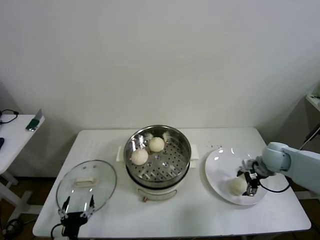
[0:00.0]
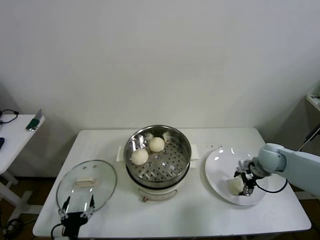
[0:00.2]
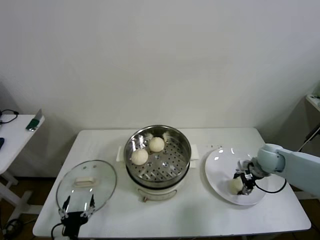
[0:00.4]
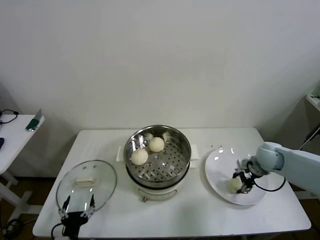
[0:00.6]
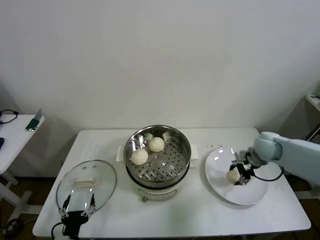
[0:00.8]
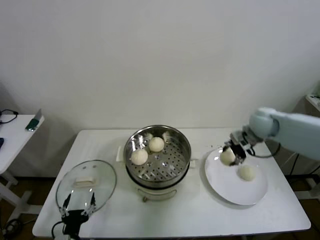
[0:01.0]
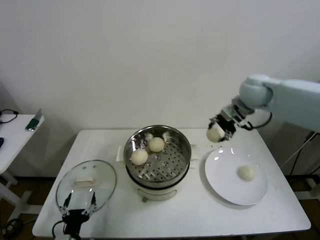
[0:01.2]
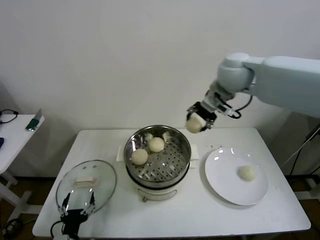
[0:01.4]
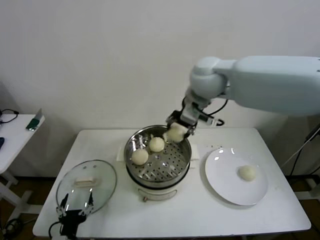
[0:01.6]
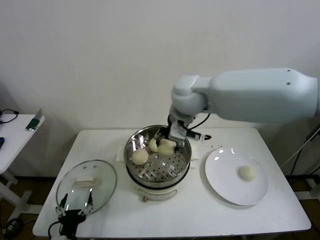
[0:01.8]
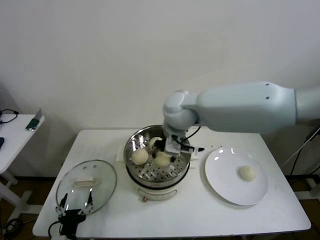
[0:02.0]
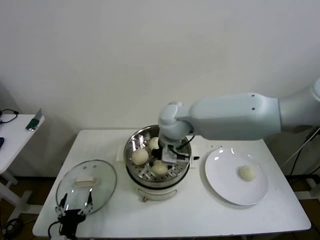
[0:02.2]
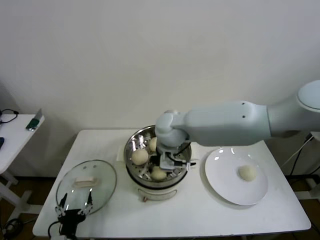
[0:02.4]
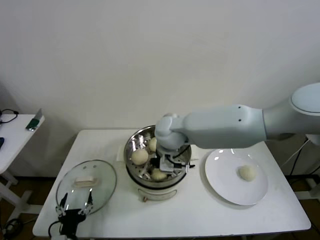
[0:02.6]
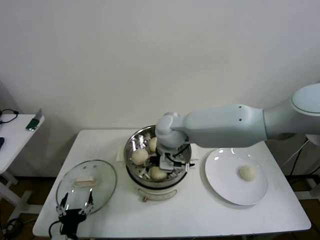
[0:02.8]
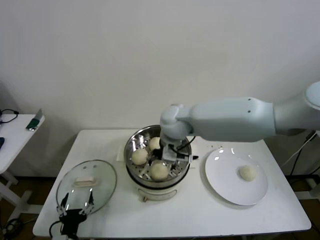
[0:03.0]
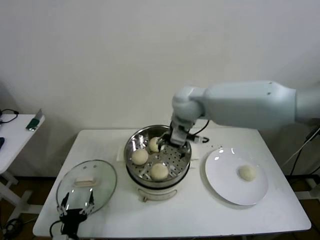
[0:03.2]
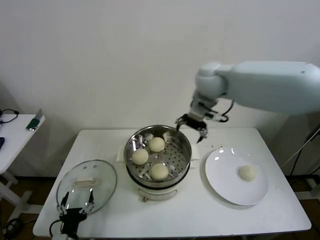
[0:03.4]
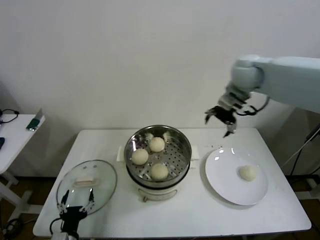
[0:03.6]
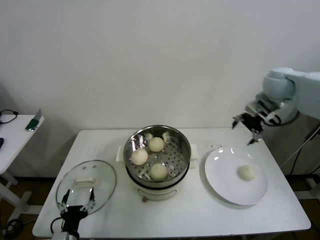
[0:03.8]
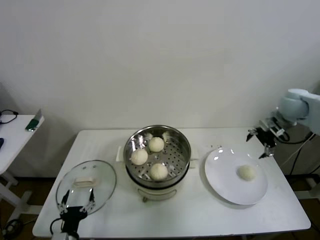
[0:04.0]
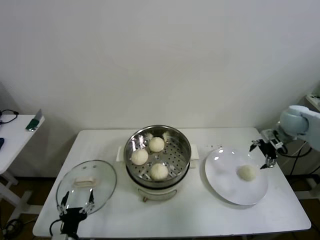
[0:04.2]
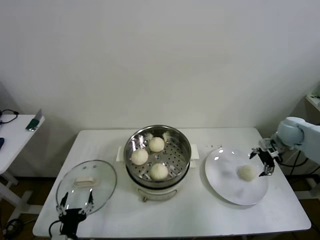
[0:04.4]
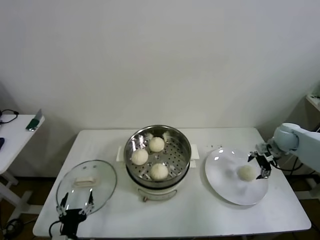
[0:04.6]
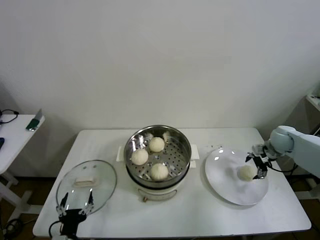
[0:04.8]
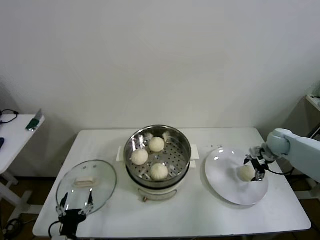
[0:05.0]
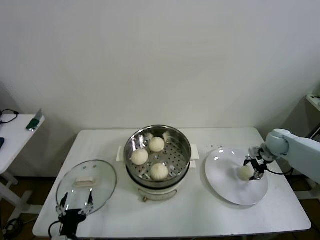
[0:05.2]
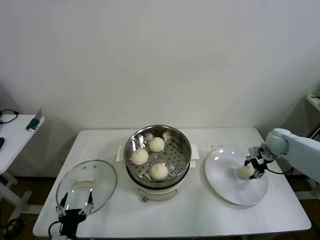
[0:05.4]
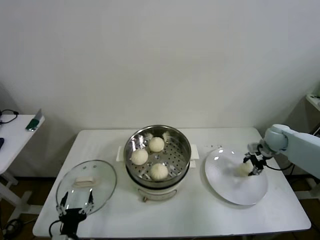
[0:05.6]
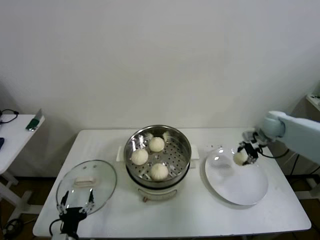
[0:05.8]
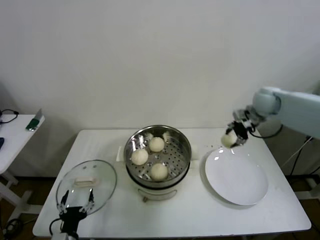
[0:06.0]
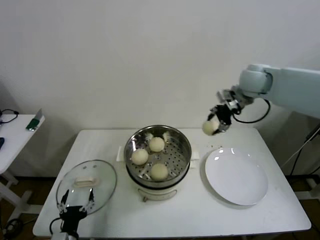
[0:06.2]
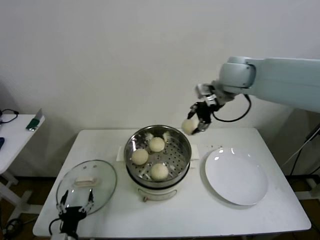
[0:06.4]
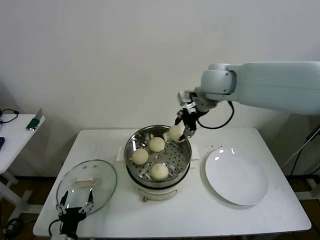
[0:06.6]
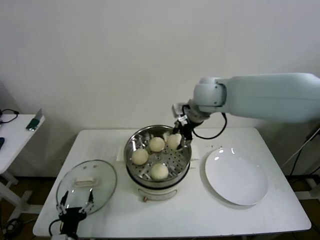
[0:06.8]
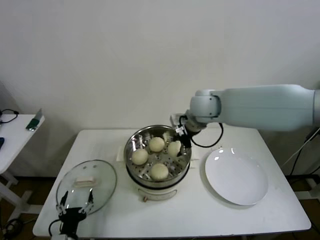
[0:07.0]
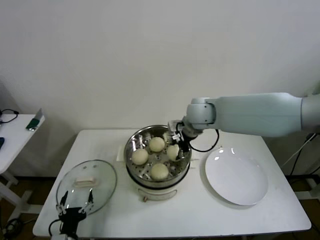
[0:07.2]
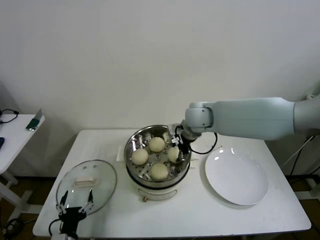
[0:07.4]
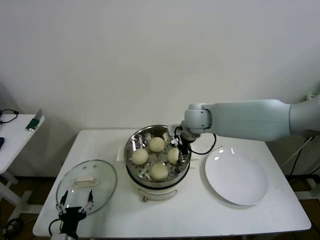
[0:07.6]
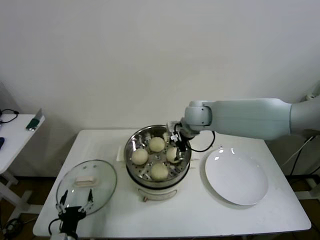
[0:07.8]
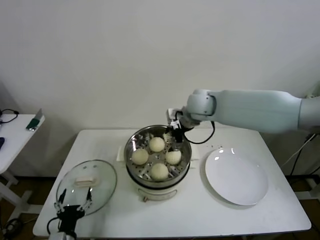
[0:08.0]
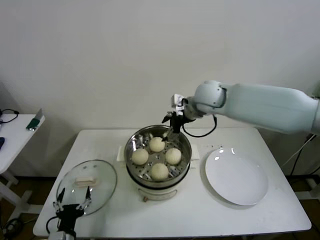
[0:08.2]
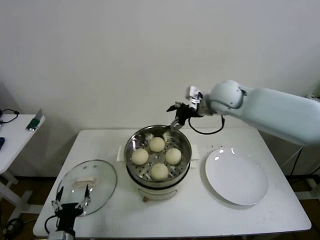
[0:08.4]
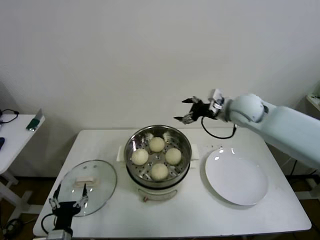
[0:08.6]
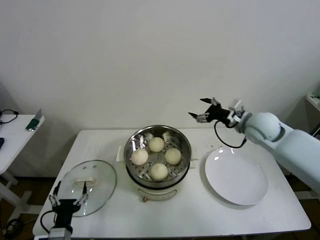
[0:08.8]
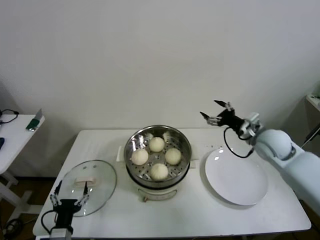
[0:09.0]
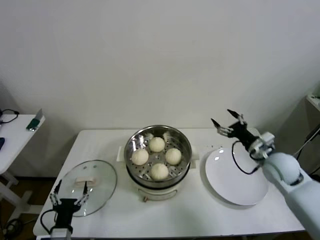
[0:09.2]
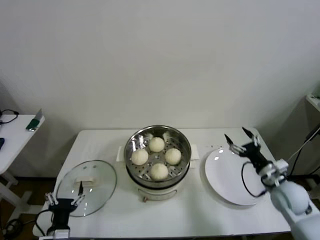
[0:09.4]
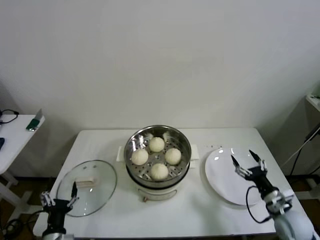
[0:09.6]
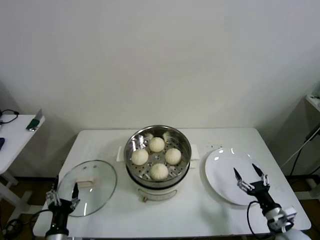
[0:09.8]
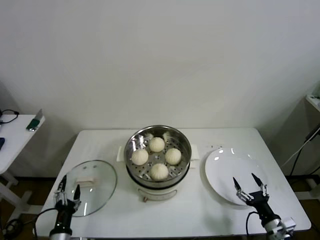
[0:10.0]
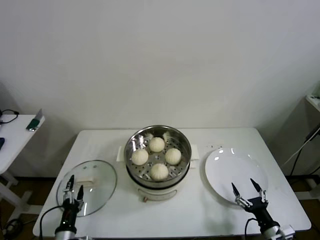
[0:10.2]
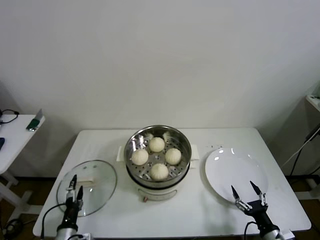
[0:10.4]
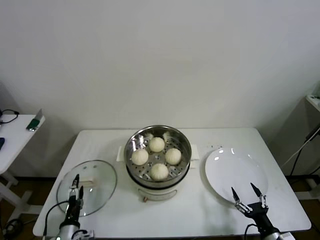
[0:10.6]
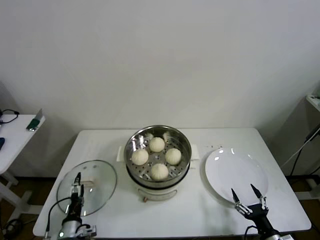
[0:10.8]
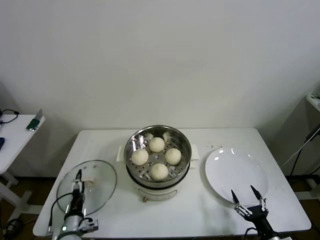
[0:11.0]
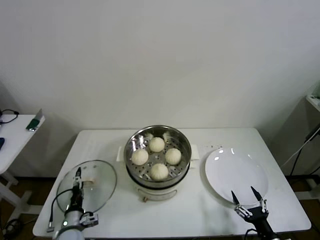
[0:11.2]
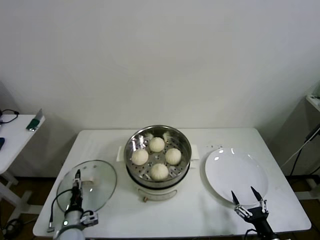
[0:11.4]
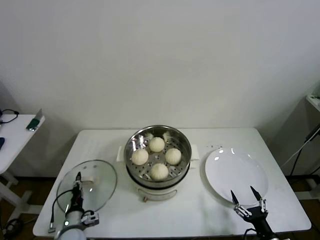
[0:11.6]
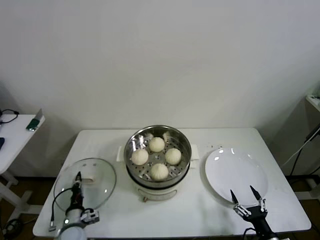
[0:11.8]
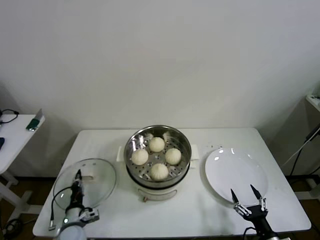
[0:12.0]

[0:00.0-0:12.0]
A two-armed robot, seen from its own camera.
Step, 0:00.6 to 0:02.8: Place the baozi on the steamer with right gripper.
Step, 0:03.2 to 0:05.4: Grasp the baozi in the plate with right gripper.
Step, 0:05.6 to 0:07.8: Place the baozi on the steamer with right gripper.
Step, 0:08.0 to 0:11.8: Grasp the pot lid with left gripper.
0:00.0 to 0:01.6: The right gripper moves to the left and upward, about 40 cm, and closes.
0:01.6 to 0:03.0: The right gripper is displaced downward by some 10 cm, and opens up.
0:03.0 to 0:04.4: The right gripper is displaced to the right by about 40 cm.
0:04.4 to 0:06.0: The right gripper moves upward and to the left, roughly 20 cm, and closes its fingers.
0:06.0 to 0:07.6: The right gripper moves to the left, some 20 cm, and opens its fingers.
0:07.6 to 0:09.0: The right gripper shifts about 25 cm to the right.
0:09.0 to 0:10.4: The right gripper travels backward and downward by some 35 cm, while the left gripper travels downward by roughly 5 cm.
0:10.4 to 0:12.0: The left gripper shifts approximately 5 cm forward, and closes.

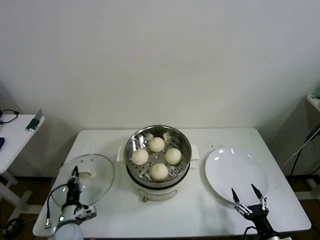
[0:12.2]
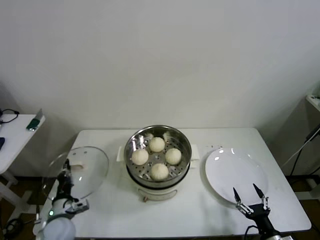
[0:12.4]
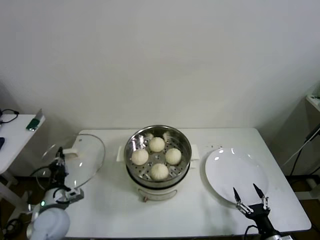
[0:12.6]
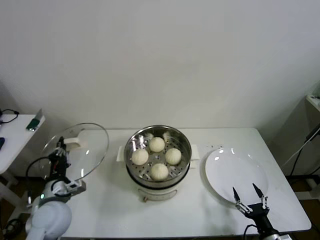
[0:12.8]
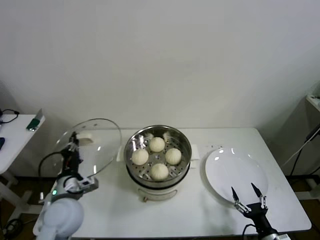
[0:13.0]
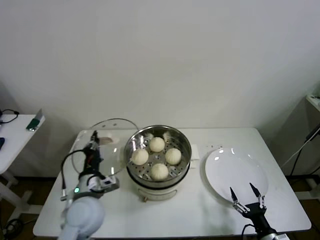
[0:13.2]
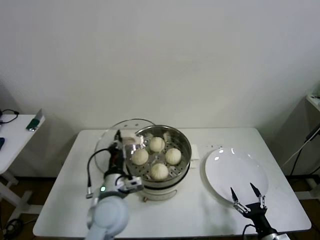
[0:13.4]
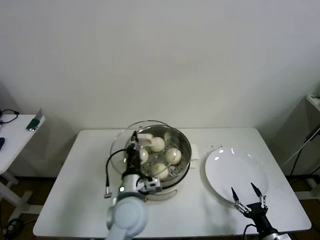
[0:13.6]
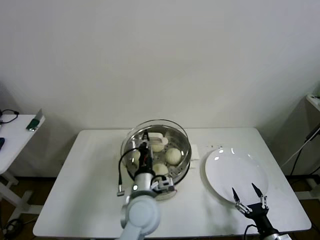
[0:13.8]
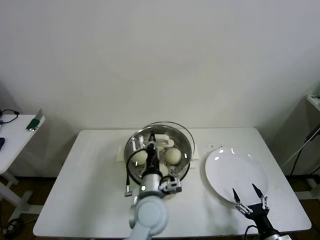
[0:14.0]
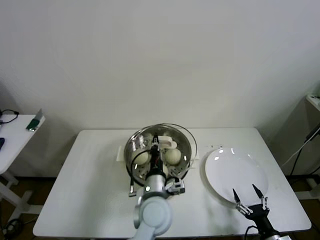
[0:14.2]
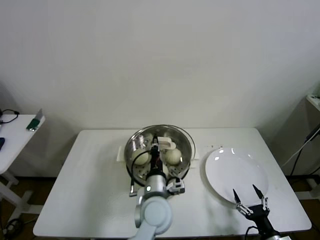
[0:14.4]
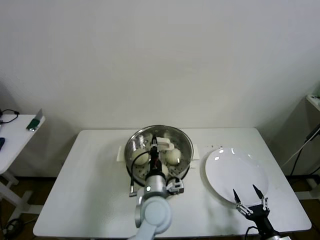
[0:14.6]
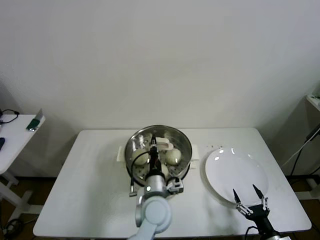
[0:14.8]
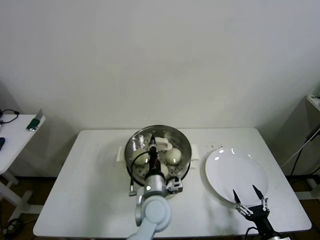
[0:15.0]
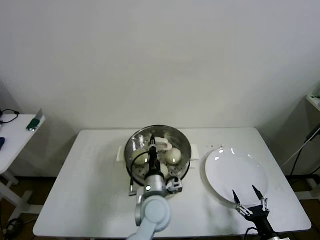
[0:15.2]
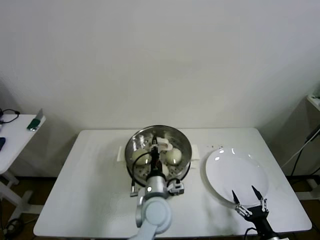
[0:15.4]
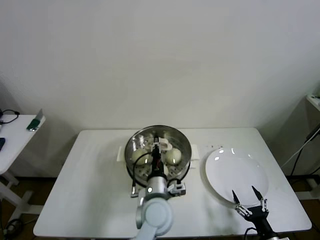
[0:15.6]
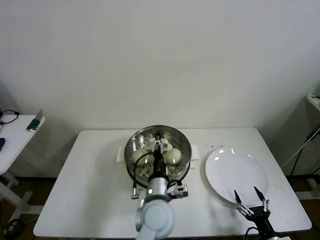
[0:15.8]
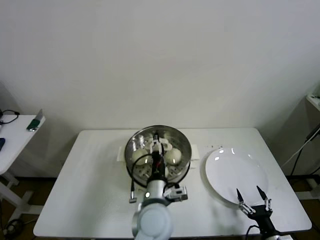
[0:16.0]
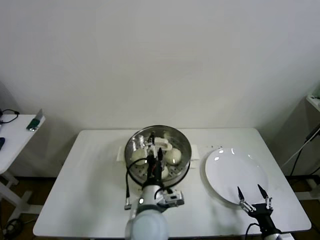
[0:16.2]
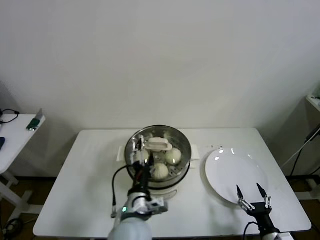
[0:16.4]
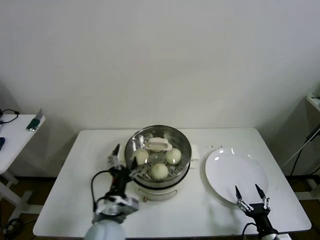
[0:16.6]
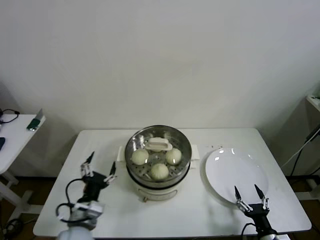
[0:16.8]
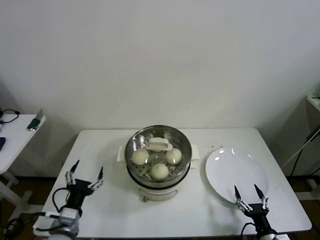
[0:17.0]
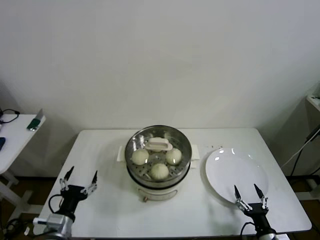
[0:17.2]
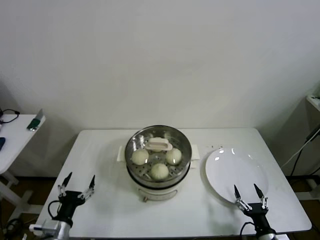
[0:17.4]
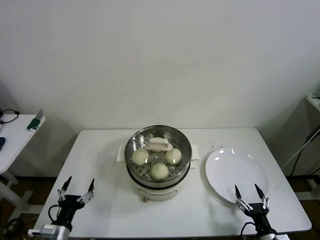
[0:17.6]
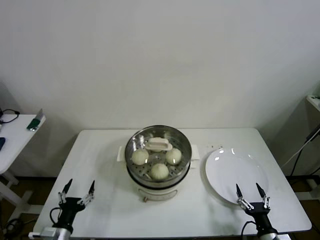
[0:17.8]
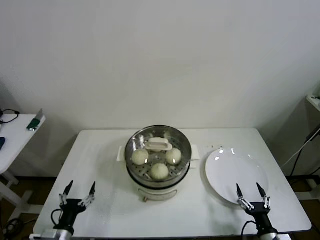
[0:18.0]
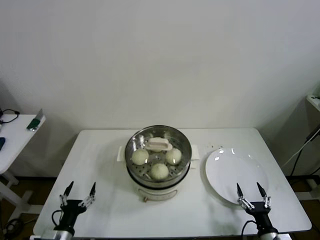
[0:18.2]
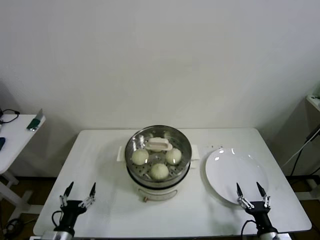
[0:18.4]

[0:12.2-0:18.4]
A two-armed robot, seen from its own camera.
Step, 0:12.2 to 0:15.6: Place the pot lid on the steamer with left gripper.
0:12.2 to 0:13.8: The left gripper is displaced to the right and upward by roughly 30 cm.
0:13.8 to 0:15.4: The left gripper ends up some 5 cm from where it was.
0:15.4 to 0:16.8: The left gripper moves to the left and backward, some 20 cm, and opens up.
0:16.8 to 0:18.4: The left gripper is displaced to the left, downward and backward by roughly 20 cm.
